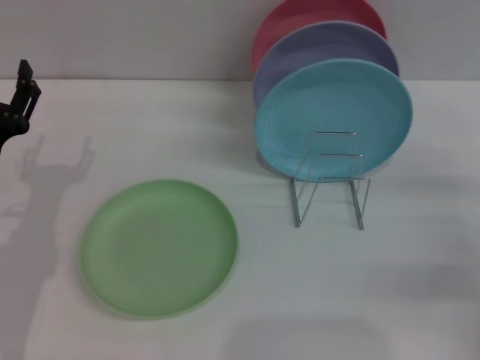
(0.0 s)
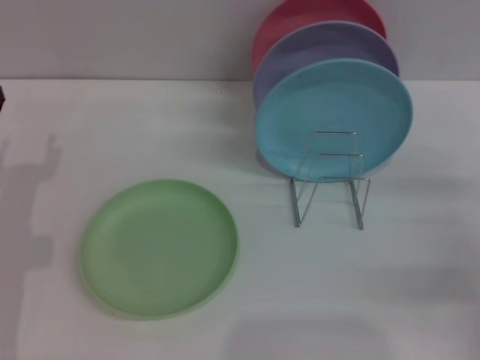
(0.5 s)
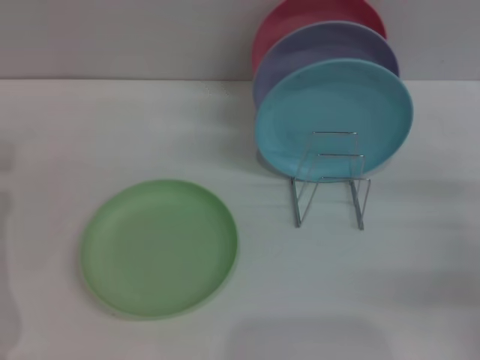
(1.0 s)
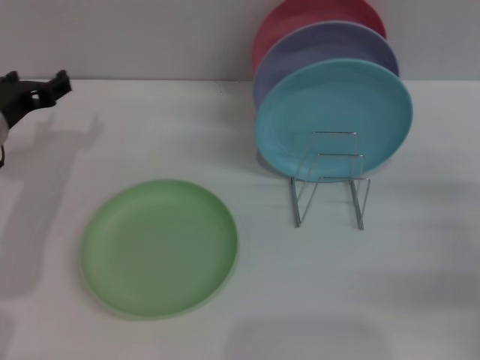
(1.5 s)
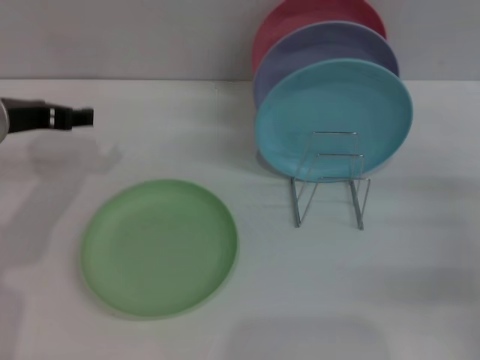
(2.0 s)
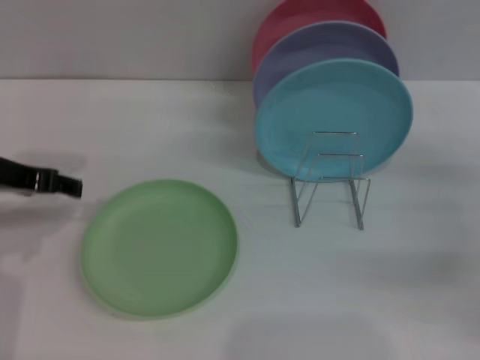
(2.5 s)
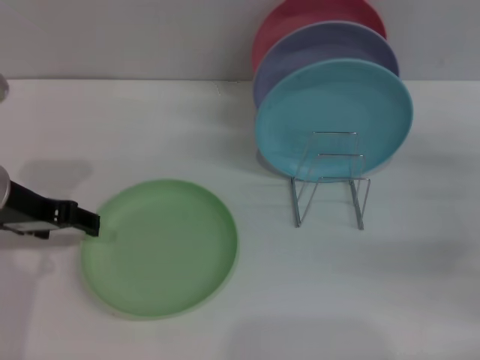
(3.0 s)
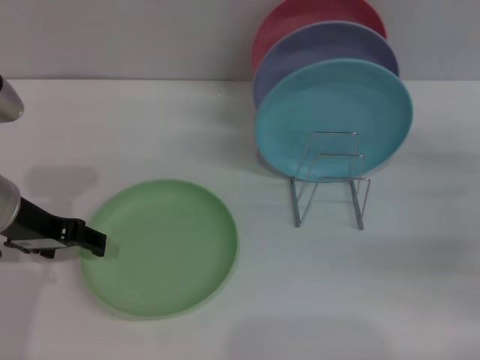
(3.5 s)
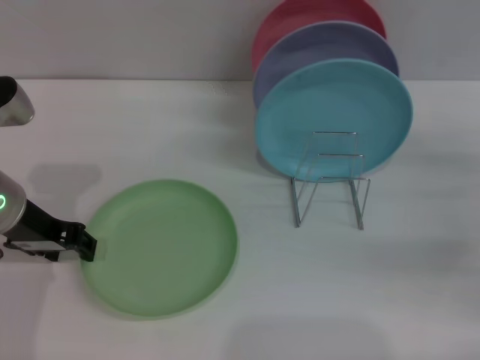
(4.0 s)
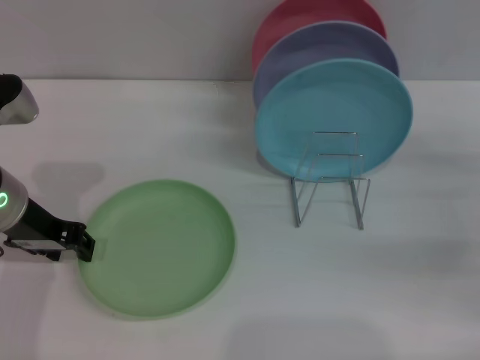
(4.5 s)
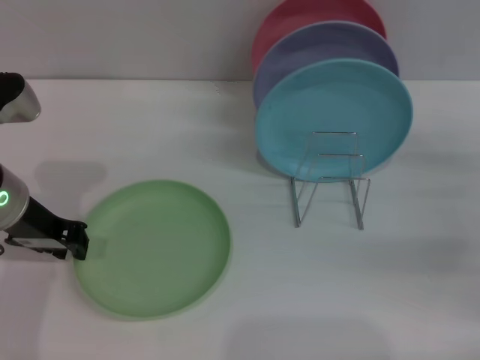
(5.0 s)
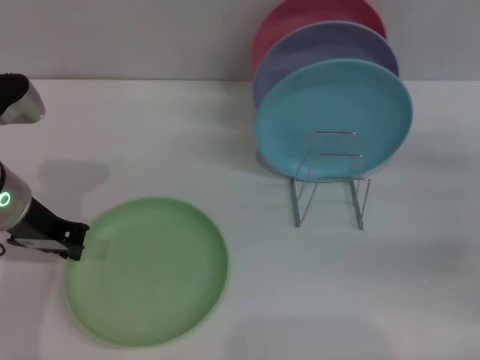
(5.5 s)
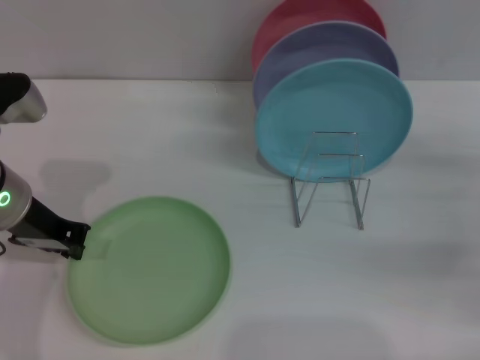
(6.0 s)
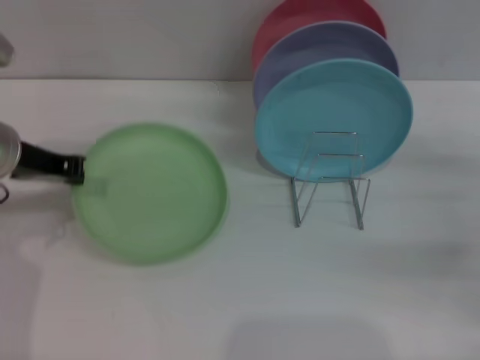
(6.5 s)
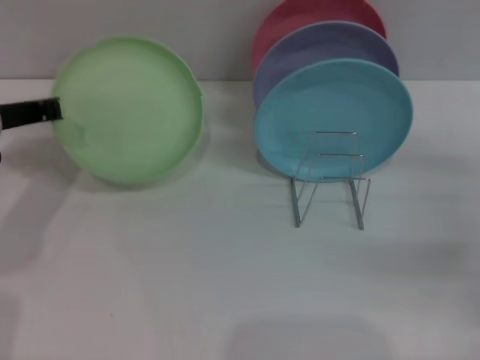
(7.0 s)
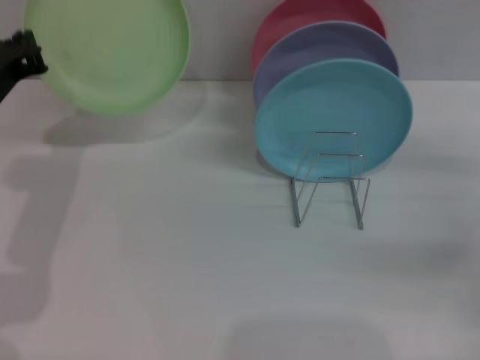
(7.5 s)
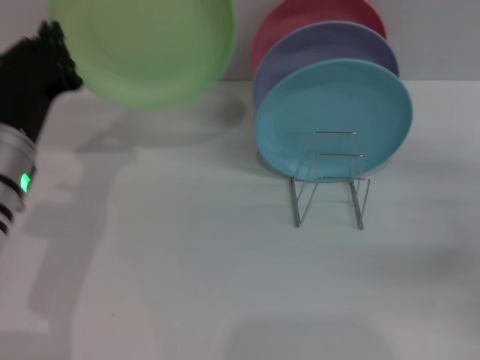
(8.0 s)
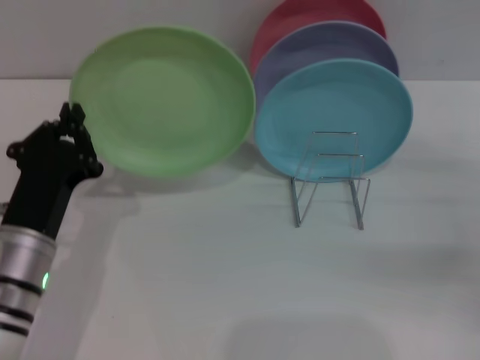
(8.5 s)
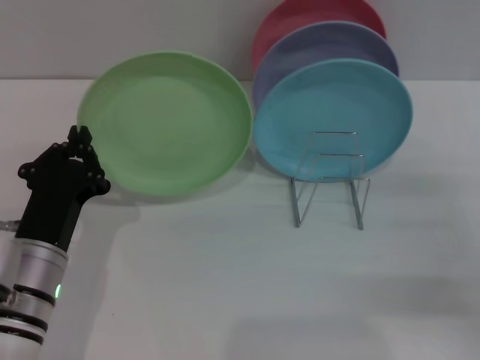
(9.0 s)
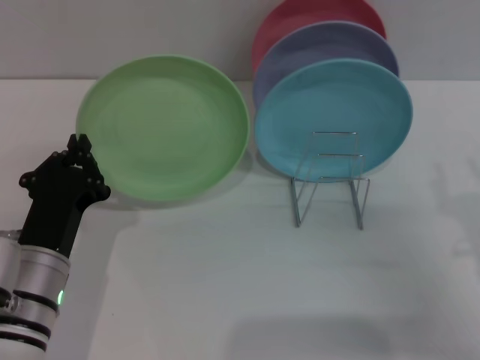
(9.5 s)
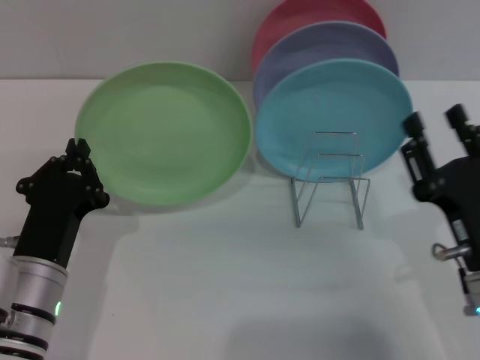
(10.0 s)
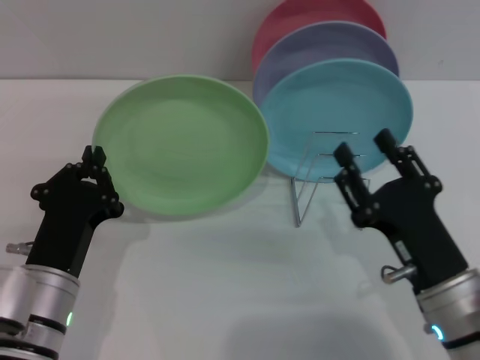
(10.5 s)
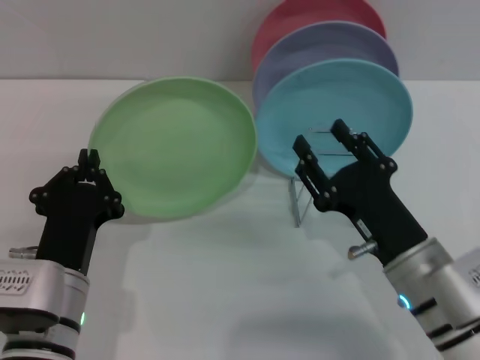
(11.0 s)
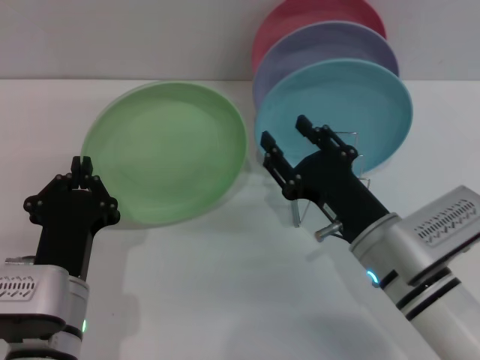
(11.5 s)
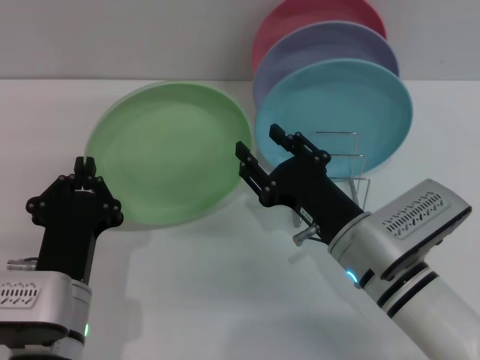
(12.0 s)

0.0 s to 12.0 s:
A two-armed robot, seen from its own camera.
Task of the whole recording: Grip the plate with one hand, pass it to the other, then set it on the shelf.
Step, 0.0 to 8.0 s: Pick up the plate with the left gripper.
0.0 to 2.0 s: The left gripper travels upward and forward by approximately 15 cm.
4.0 to 6.0 s: The left gripper closes up.
8.0 to 10.0 s: The left gripper heads downward and backward, covering approximately 10 cm. Meanwhile the right gripper travels to the left and backward by roughly 15 cm.
10.0 to 12.0 s: The right gripper heads to the left and forward, covering roughly 10 cm.

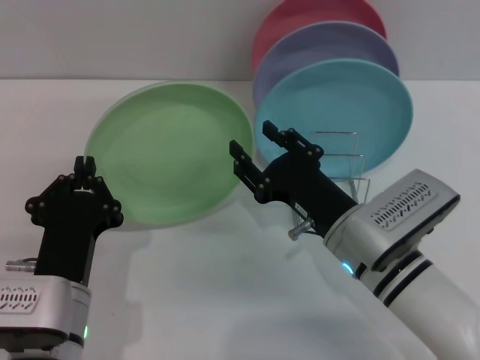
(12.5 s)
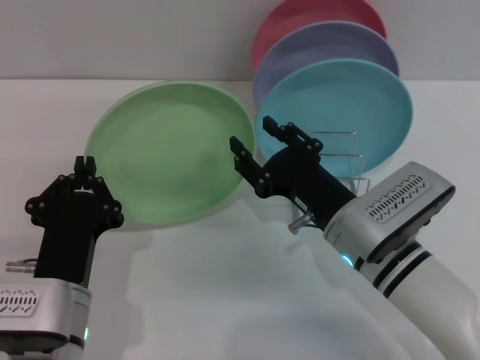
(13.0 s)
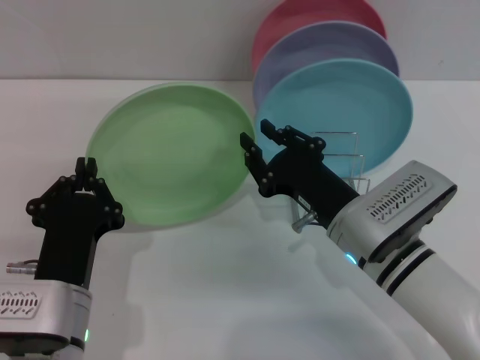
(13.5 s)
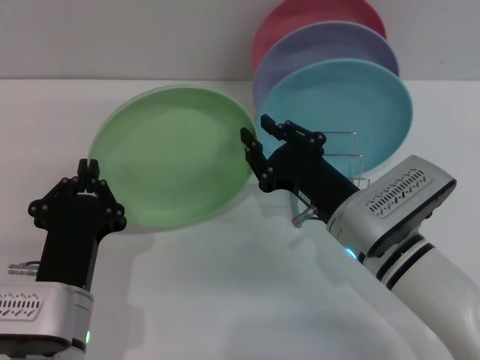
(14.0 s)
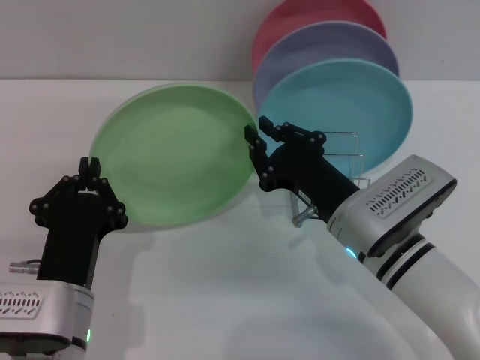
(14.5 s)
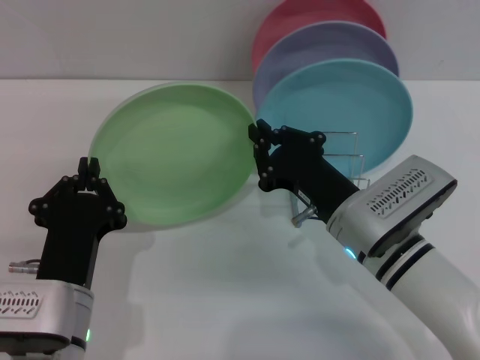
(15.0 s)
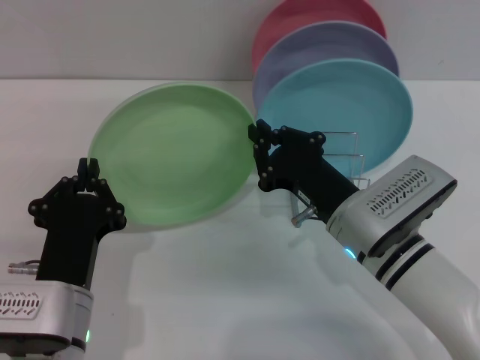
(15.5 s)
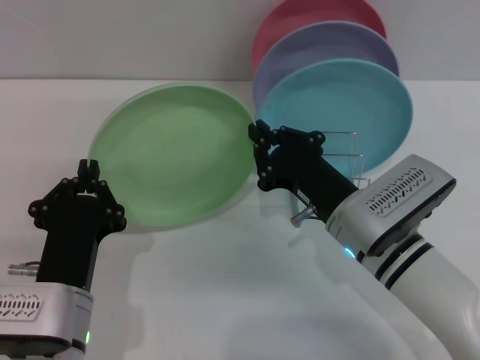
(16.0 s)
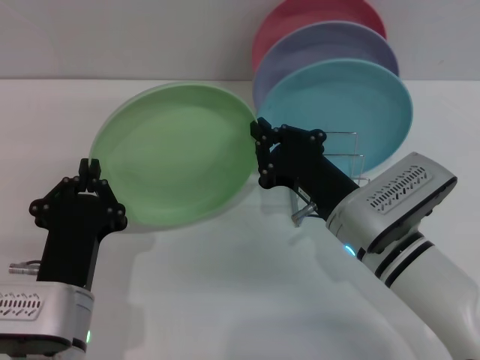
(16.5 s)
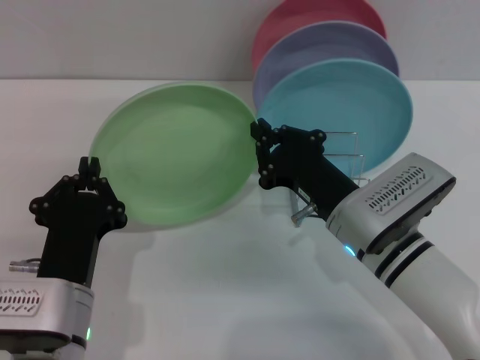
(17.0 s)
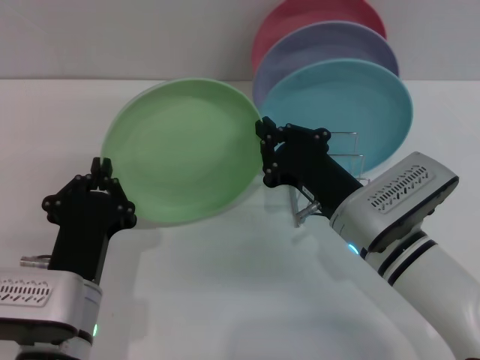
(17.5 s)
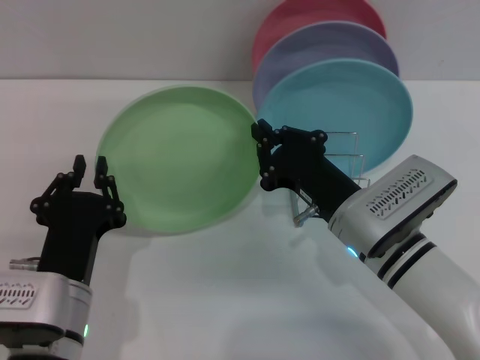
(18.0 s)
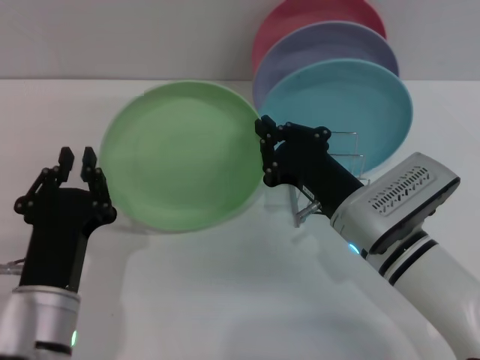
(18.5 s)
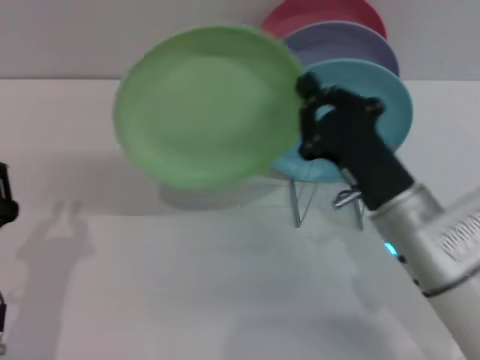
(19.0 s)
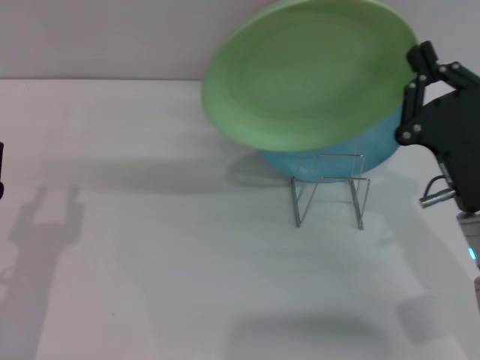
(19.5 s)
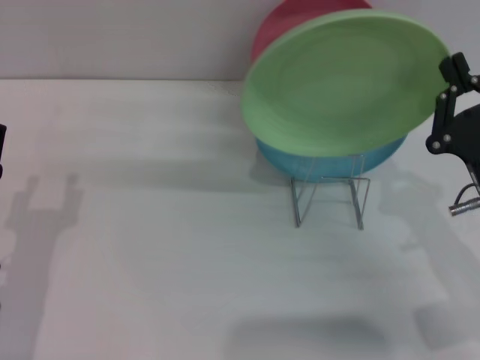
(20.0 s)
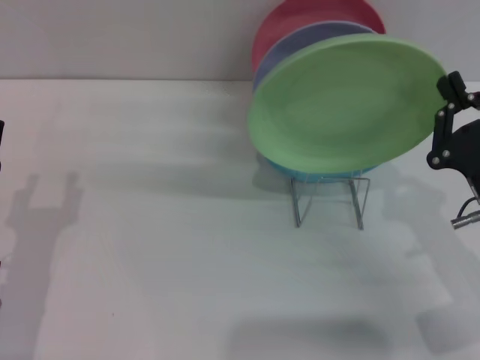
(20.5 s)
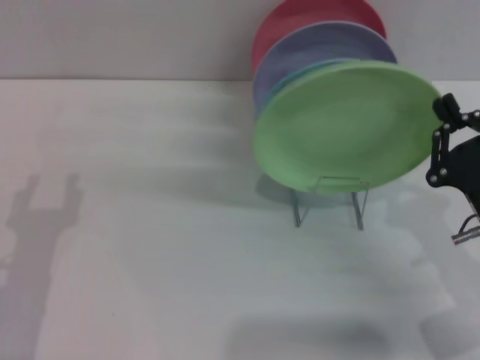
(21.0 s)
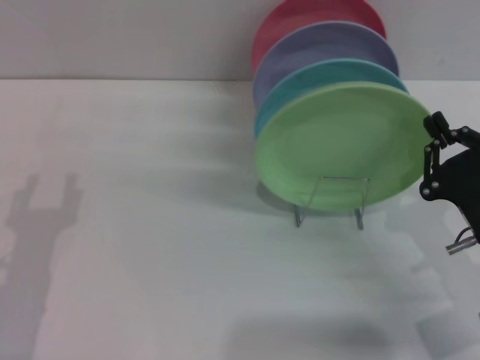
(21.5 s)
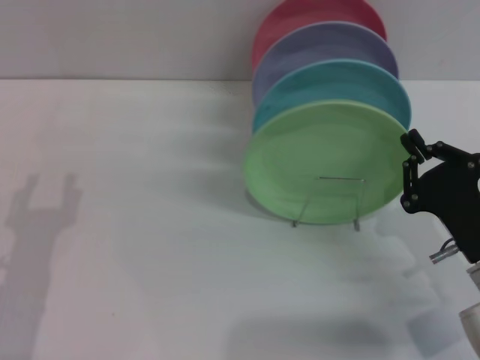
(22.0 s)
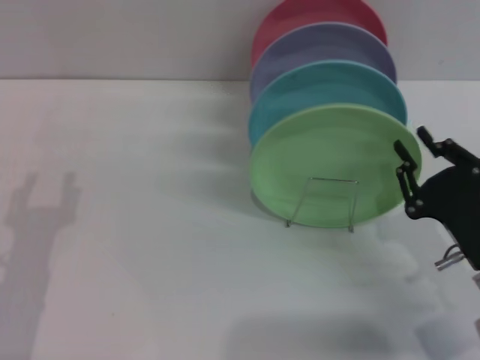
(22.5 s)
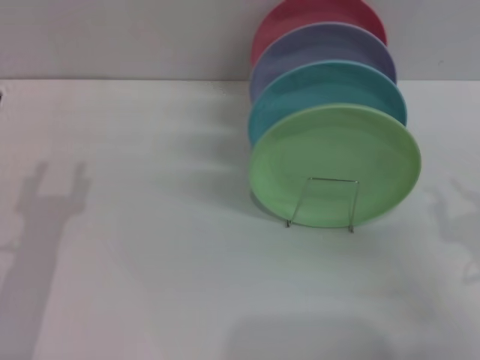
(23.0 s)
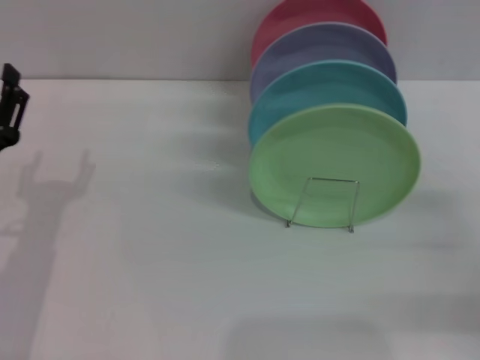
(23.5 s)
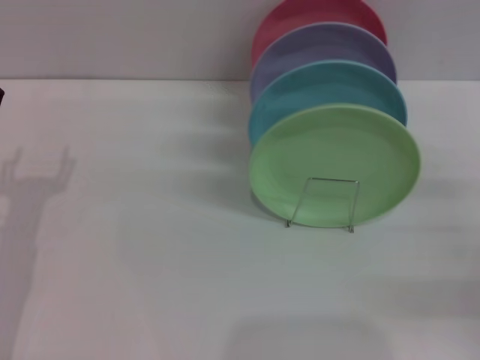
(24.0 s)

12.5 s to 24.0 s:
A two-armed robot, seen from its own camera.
Task of the whole recording: Grip the plate with one hand, pass it to the other, then set it on the shelf.
Step, 12.5 to 18.5 s: Pass the plate from the left gripper to the right gripper.
Step, 19.0 to 22.5 s: Place the plate on the shelf with the right gripper.
12.5 to 14.5 s: The right gripper closes.
14.5 to 16.5 s: Both grippers stay put.
16.5 to 18.5 s: The grippers stay close to where they were, moving slightly.
18.5 to 20.0 s: The left gripper moves to the left, some 10 cm, and opens up, while the right gripper shifts approximately 10 cm to the right and backward.
20.0 to 22.0 s: The grippers make only small movements.
22.0 to 24.0 s: The right gripper heads to the right, covering some 10 cm, and opens up.
